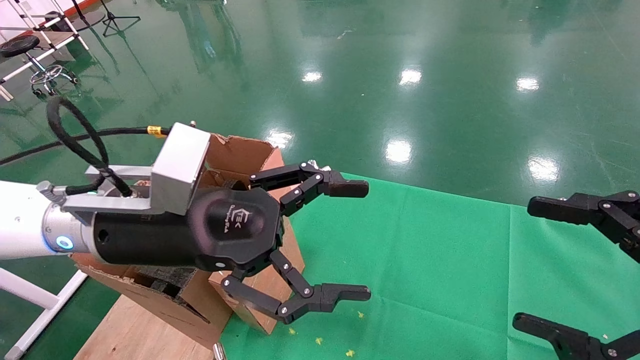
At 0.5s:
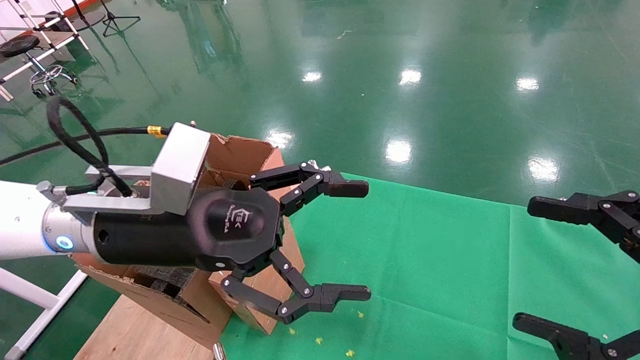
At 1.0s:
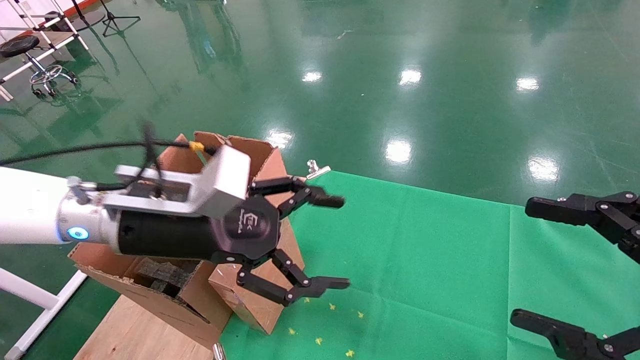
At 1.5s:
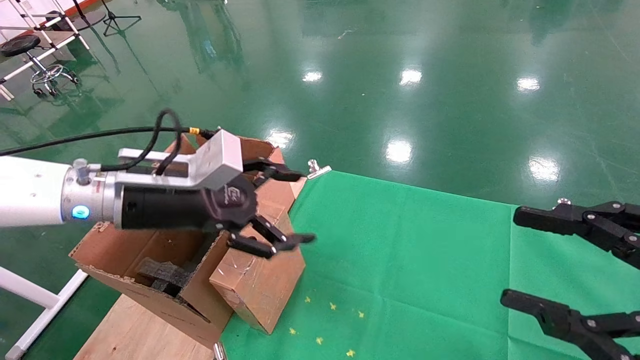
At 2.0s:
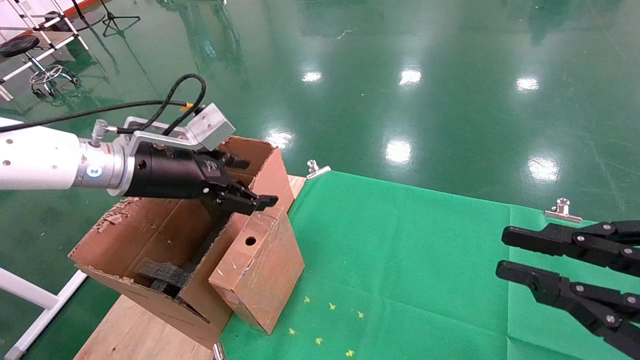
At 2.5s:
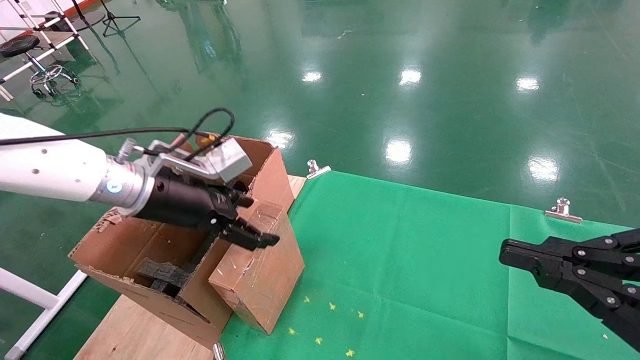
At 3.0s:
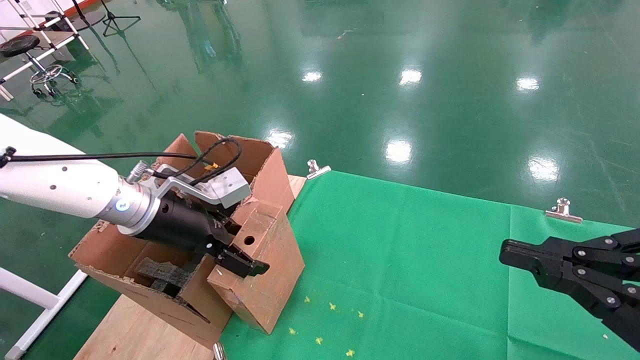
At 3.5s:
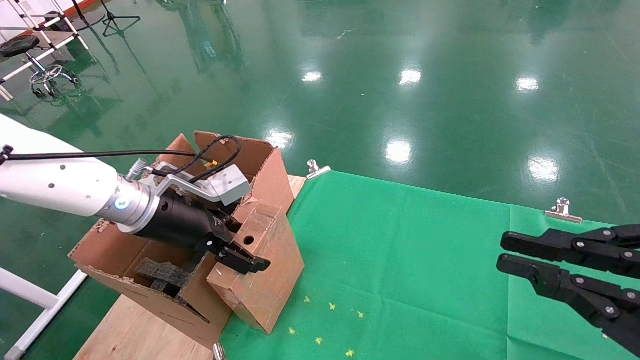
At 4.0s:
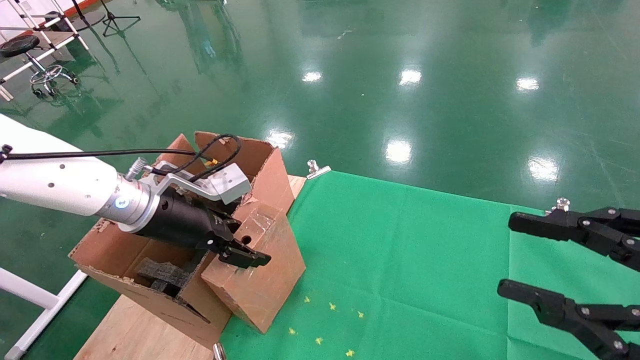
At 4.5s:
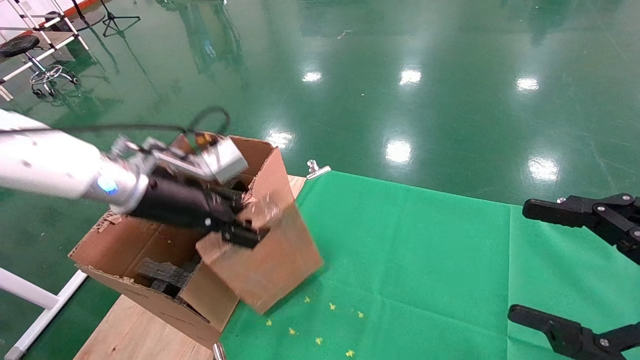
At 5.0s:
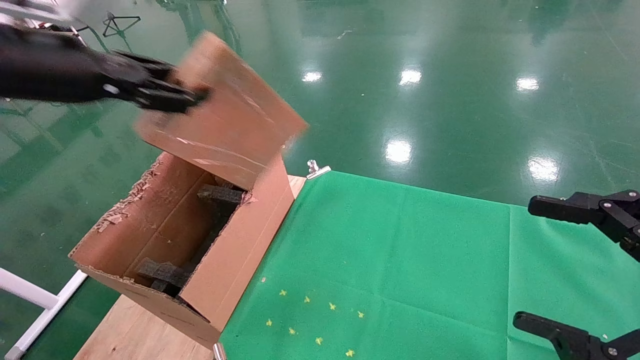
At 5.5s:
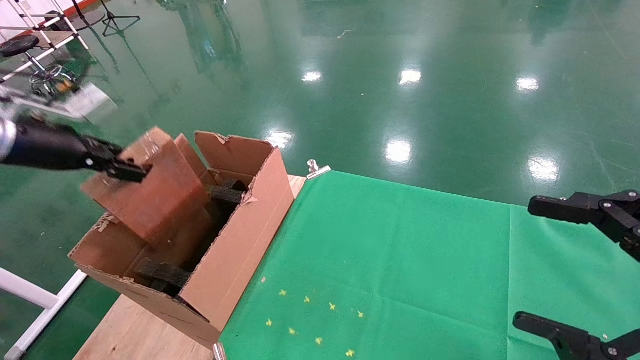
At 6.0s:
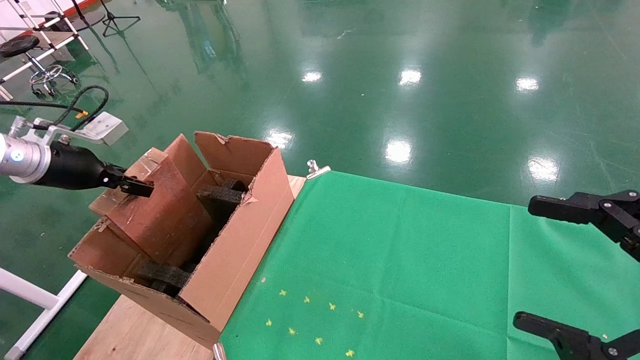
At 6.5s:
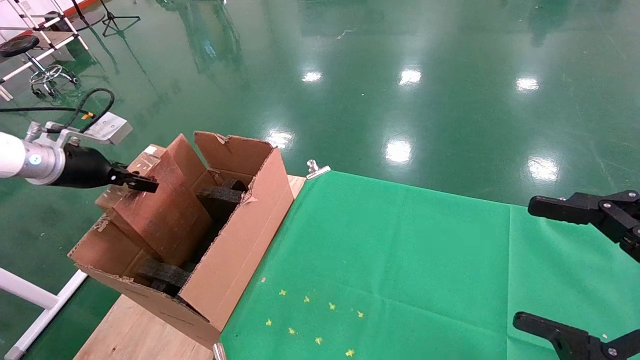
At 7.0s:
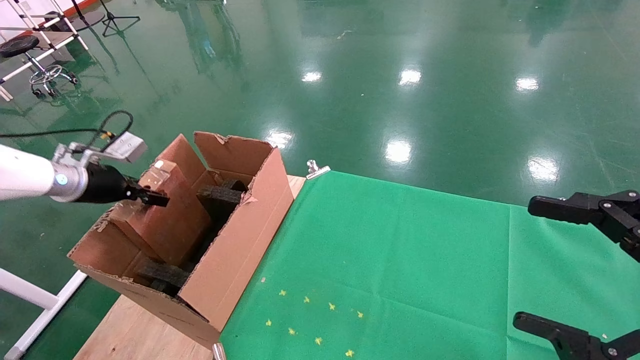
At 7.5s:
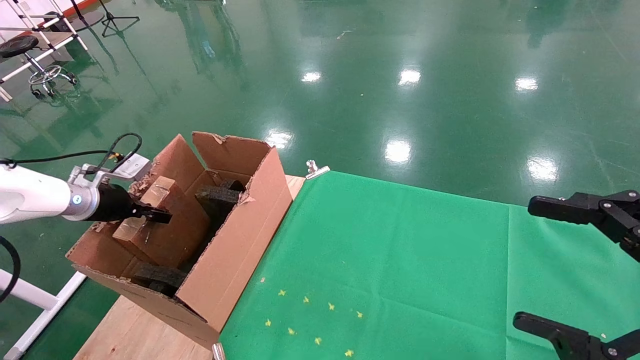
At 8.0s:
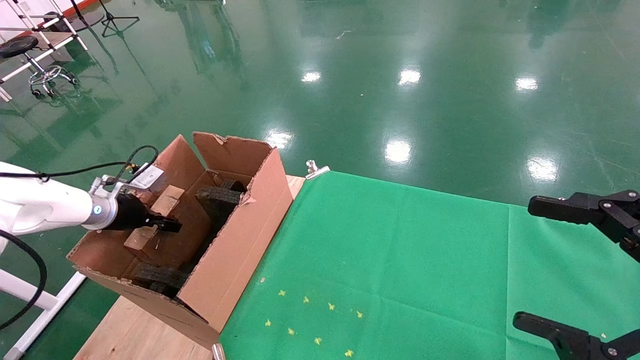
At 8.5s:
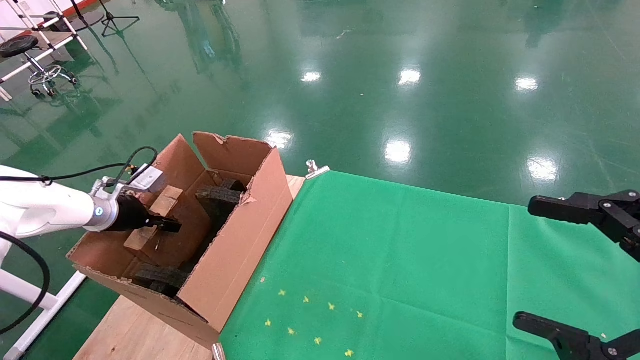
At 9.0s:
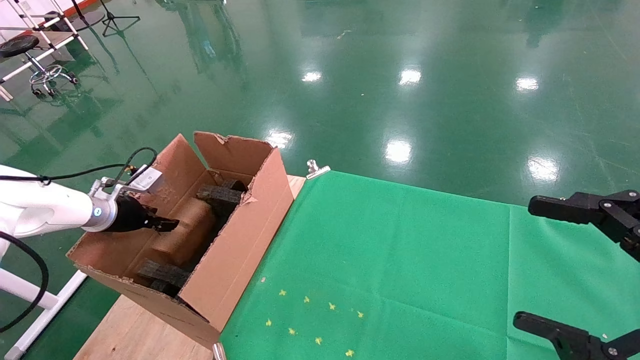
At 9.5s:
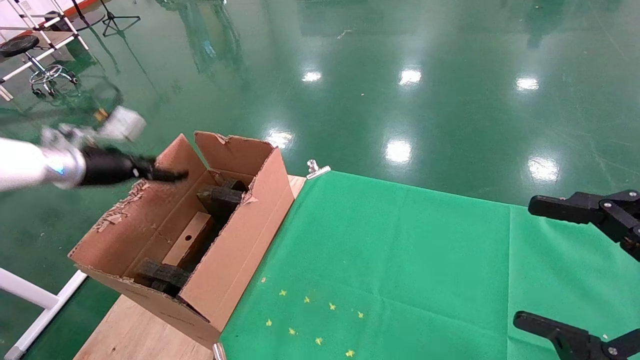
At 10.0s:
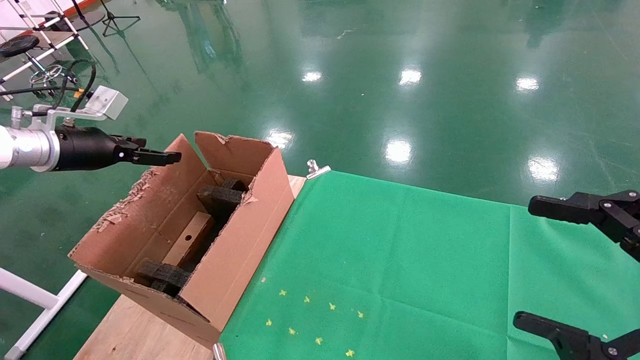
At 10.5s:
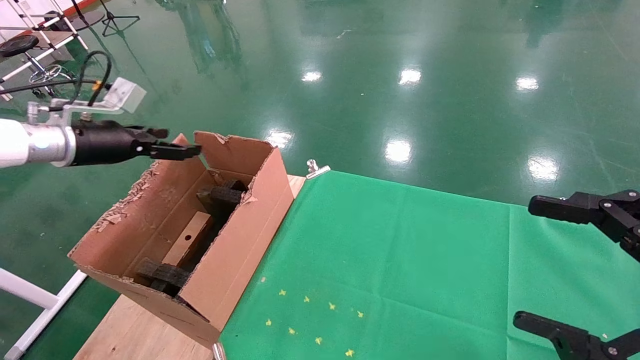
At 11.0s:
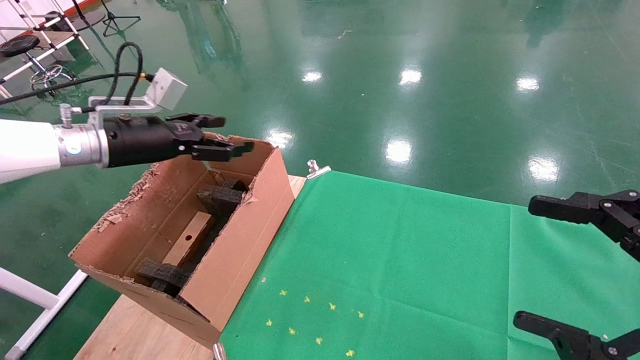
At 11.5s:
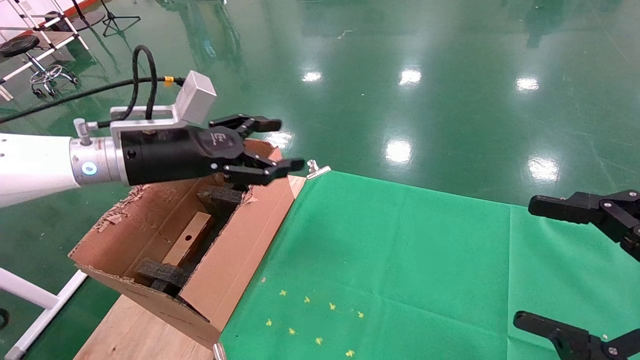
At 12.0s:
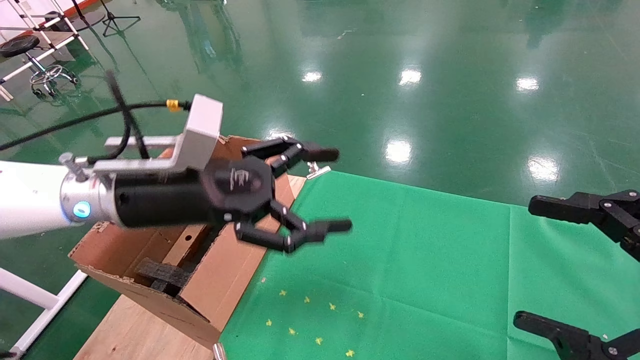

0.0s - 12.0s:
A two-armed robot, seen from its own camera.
Task of the whole recording: using a robotic arm to pick up a cardboard box and palace it the carton.
Step, 1.0s - 4.0s: Pick up the mouse and the power cord paper box.
Step, 4.5s - 9.5s: Place the mouse and the power cord paper box into the container.
0.0s - 2.0s: The right gripper closes its fingers; the left gripper travels forward and to the left by approximately 10 cm.
2.0s - 4.0s: The grippers stay close to where they were, moving slightly.
4.0s - 6.0s: The left gripper shifts some 20 cm to the left, and closes up. The right gripper opens its fingers.
6.0s - 8.0s: The left gripper moves downward and forward, some 15 cm.
8.0s - 10.0s: The left gripper heads upward, covering about 15 cm, and opens its fingers.
10.0s - 12.0s: The left gripper travels to the right by some 25 cm.

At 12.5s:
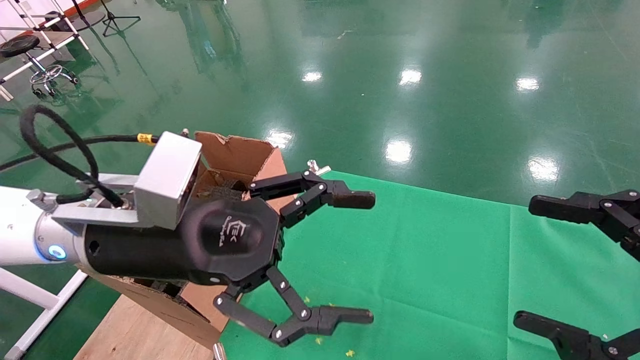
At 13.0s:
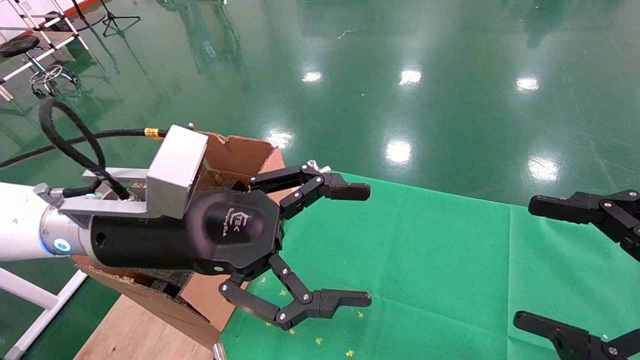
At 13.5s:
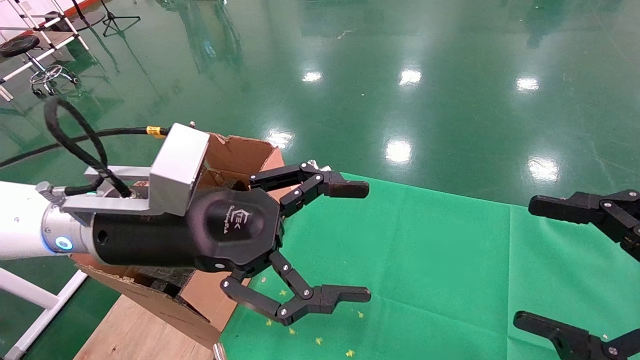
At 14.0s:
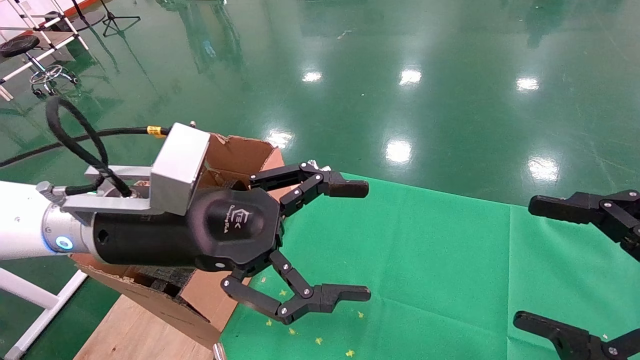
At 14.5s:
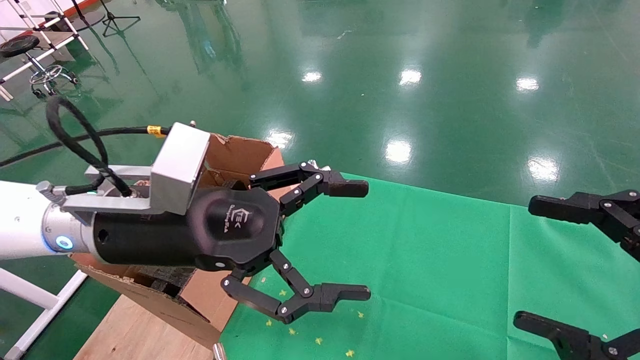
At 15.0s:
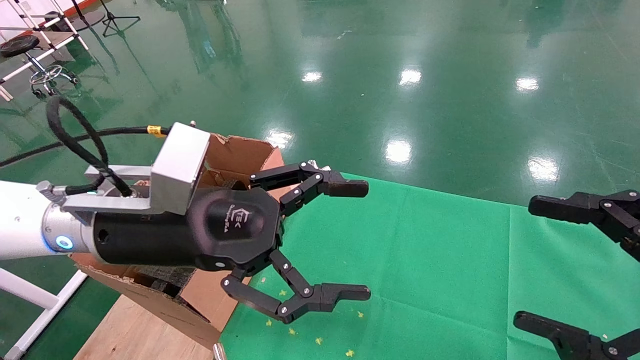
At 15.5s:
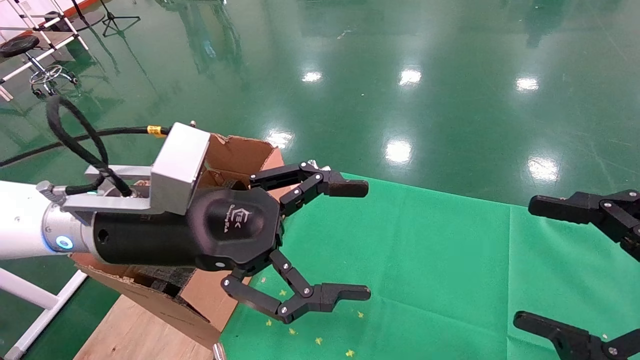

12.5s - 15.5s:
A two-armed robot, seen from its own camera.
Task of the whole recording: using a robotic arm to pick up a cardboard box and palace it the carton.
12.5s - 15.5s: Neither gripper changes place.

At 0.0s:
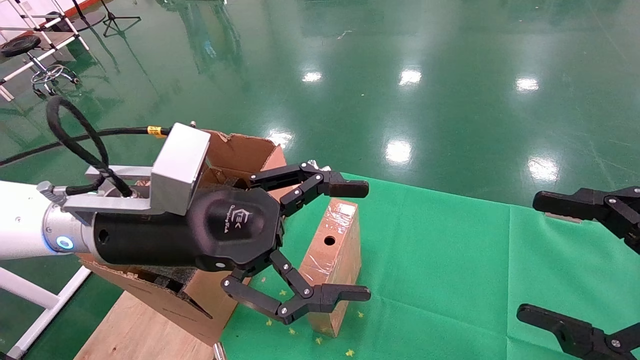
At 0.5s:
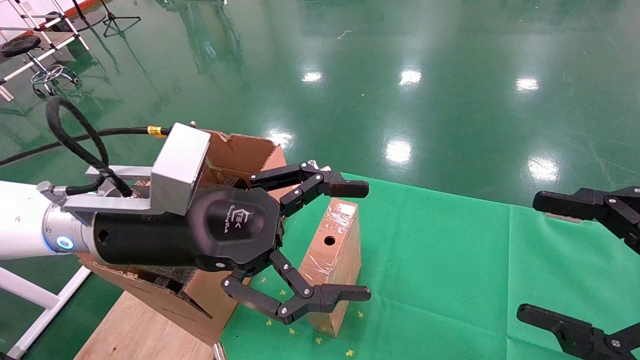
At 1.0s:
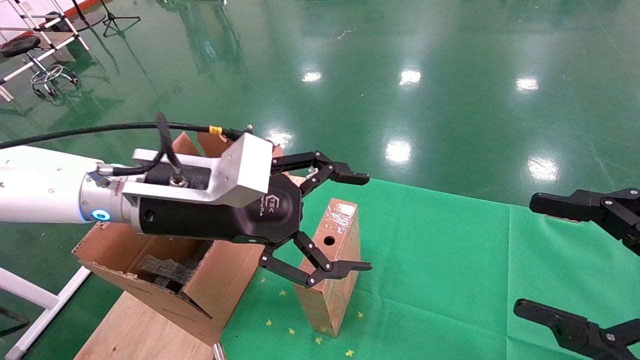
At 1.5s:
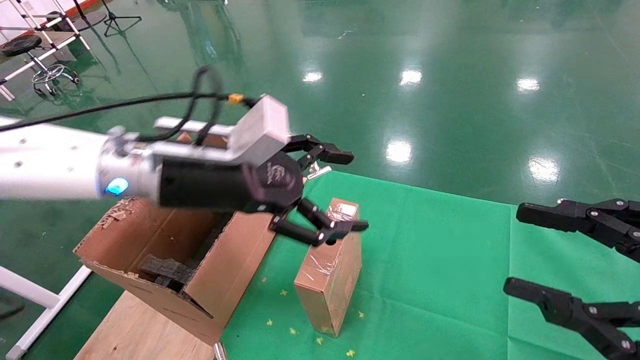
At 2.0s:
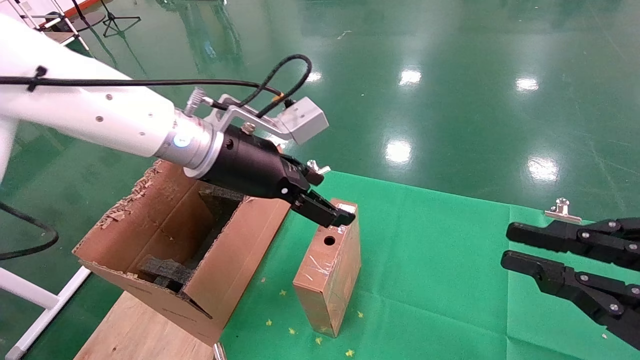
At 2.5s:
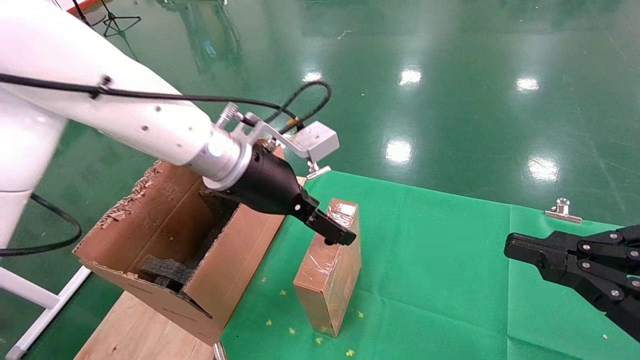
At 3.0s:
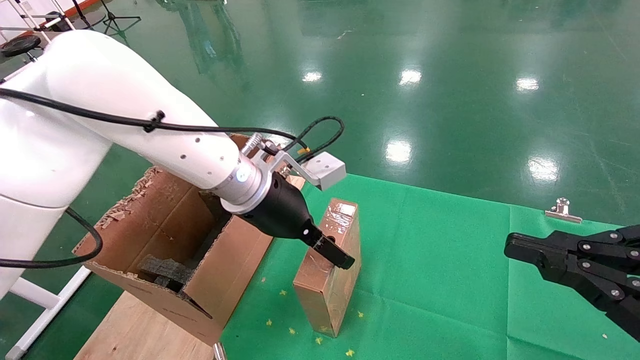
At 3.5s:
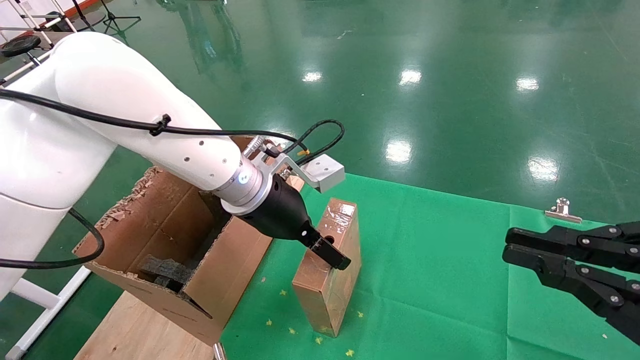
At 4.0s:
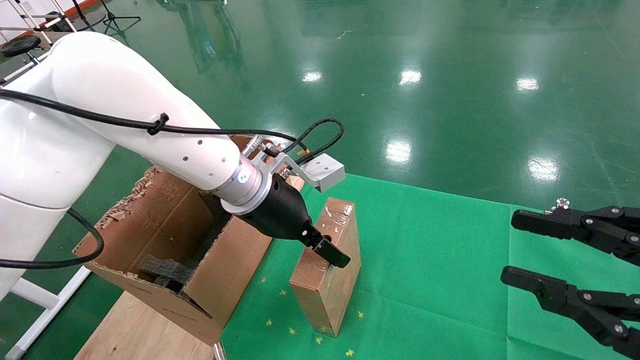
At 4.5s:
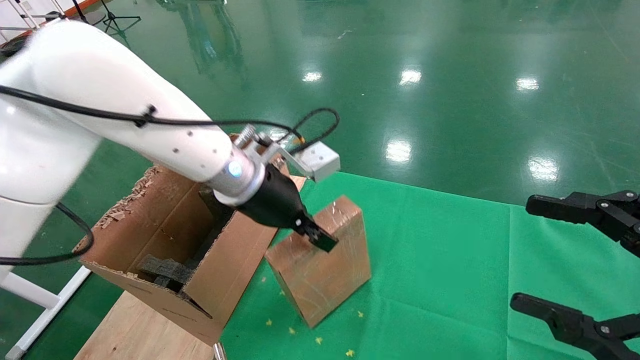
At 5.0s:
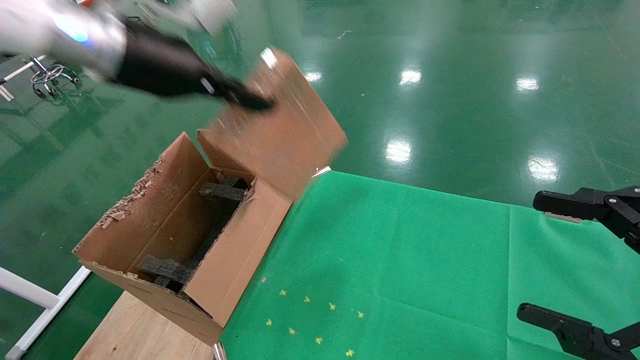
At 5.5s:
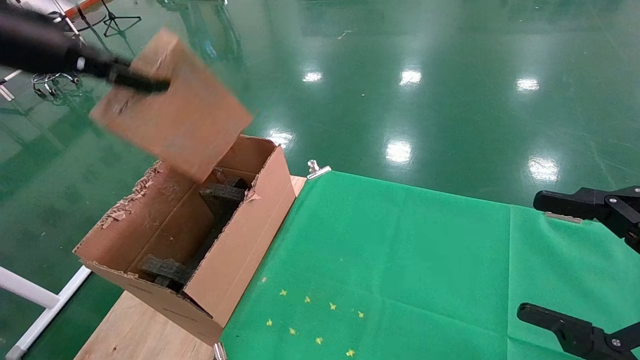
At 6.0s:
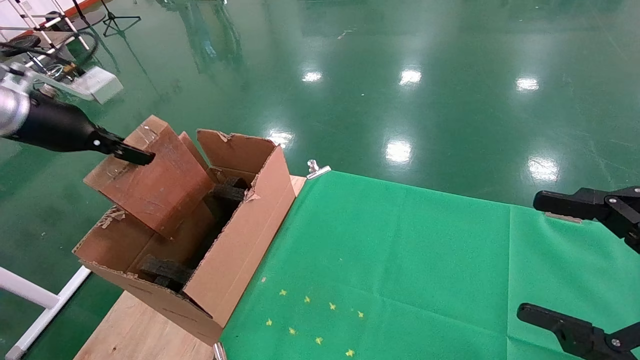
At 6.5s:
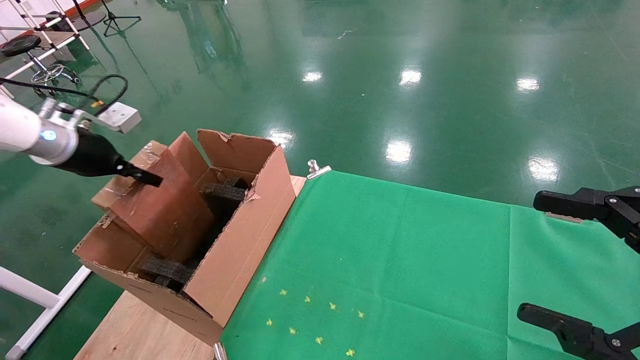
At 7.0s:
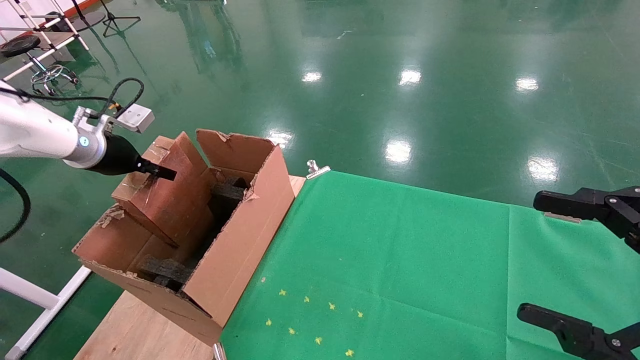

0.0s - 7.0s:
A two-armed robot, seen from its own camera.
Task of the whole recording: using a robotic arm to pick up a cardboard box and palace it the carton.
Step, 1.0s - 4.0s: Pick up the mouse and the power cord paper box.
0.0s - 2.0s: The left gripper travels forward by roughly 10 cm. Meanwhile the right gripper closes up.
2.0s - 3.5s: The left gripper goes about 5 cm downward.
3.5s - 5.0s: The right gripper opens up; the left gripper shifts approximately 20 cm upward and to the left, and closes.
5.0s - 7.0s: The left gripper moves to the left, downward and forward, roughly 25 cm.
